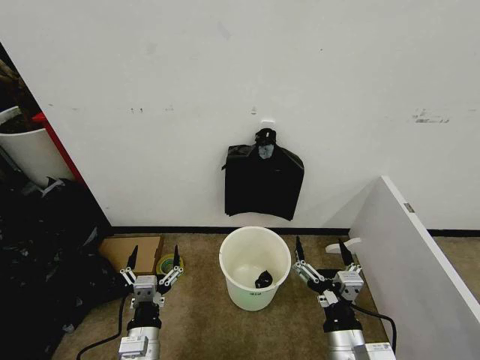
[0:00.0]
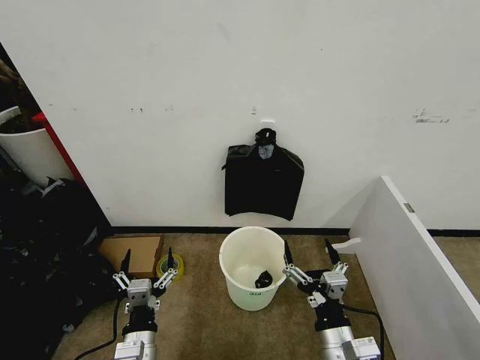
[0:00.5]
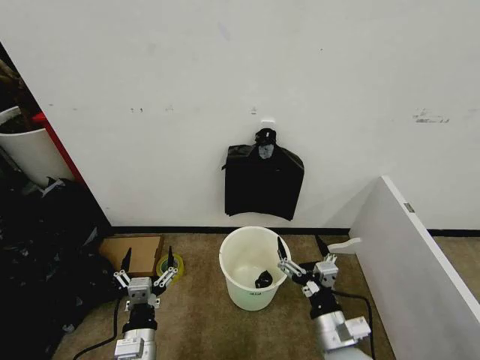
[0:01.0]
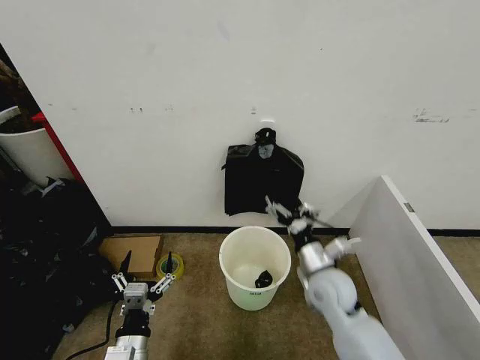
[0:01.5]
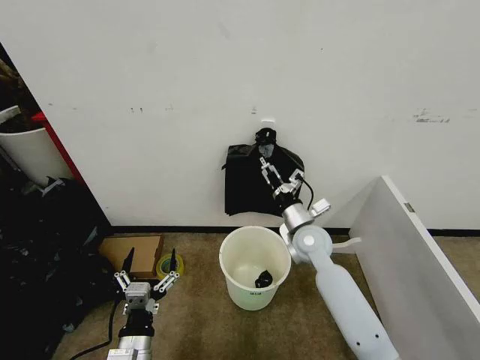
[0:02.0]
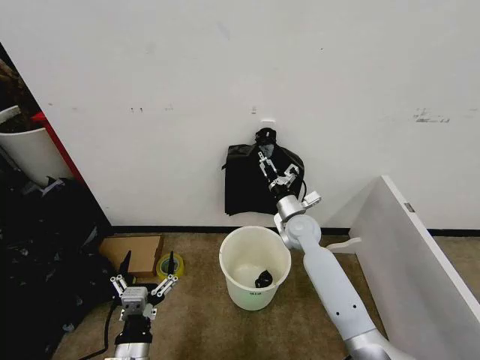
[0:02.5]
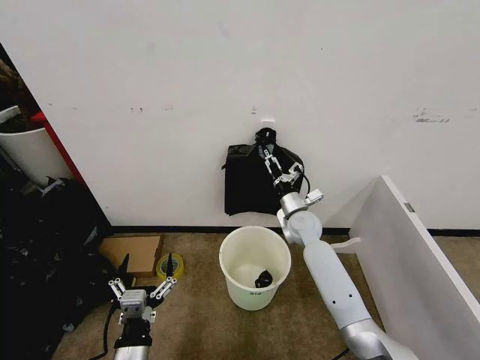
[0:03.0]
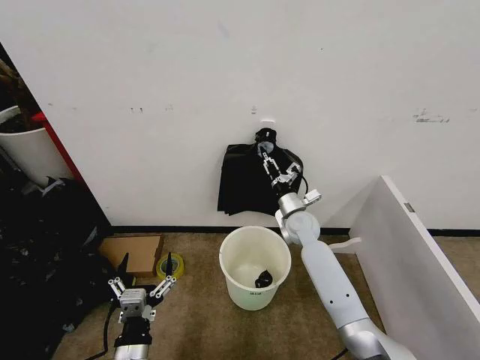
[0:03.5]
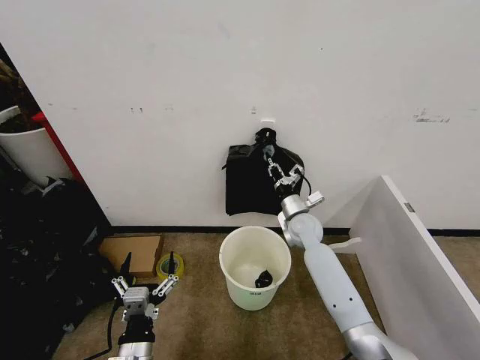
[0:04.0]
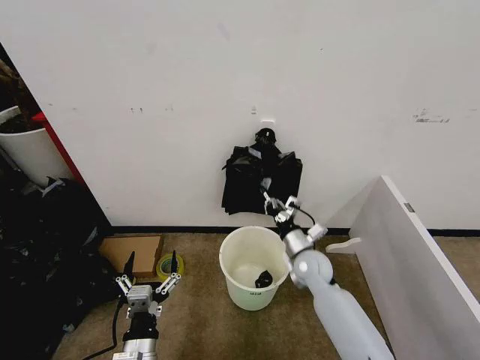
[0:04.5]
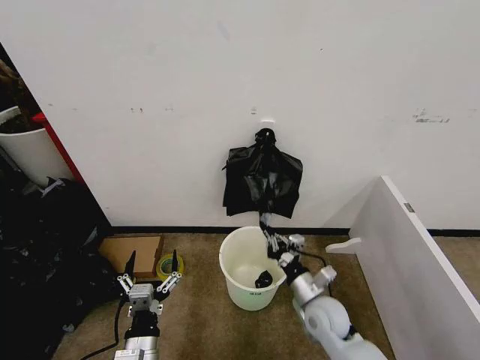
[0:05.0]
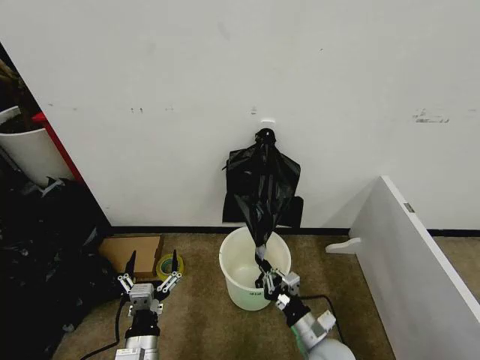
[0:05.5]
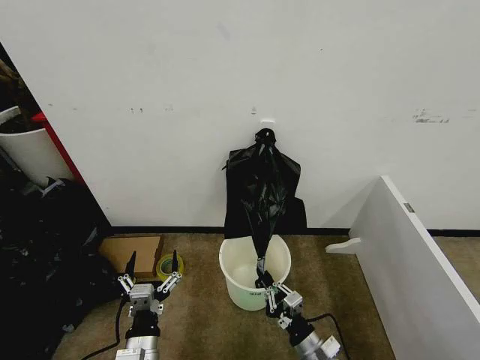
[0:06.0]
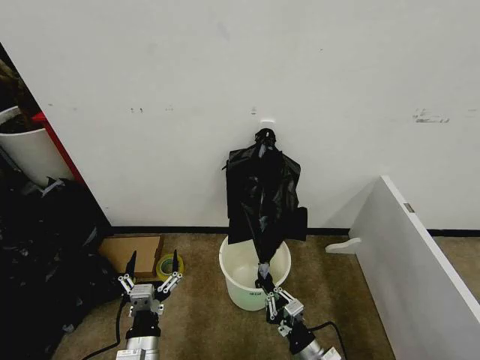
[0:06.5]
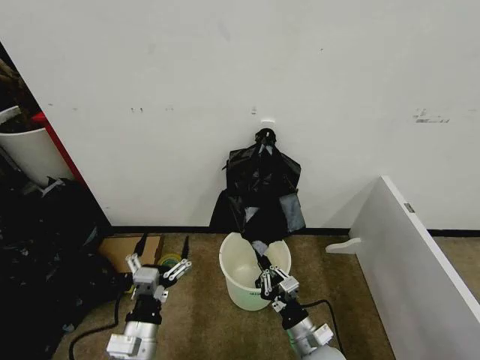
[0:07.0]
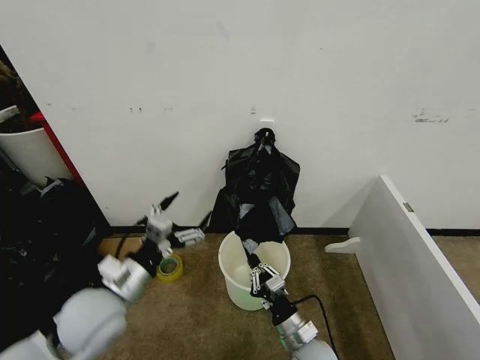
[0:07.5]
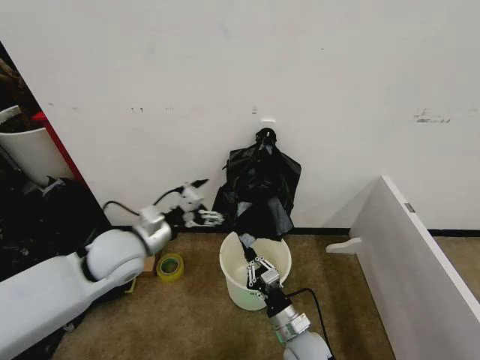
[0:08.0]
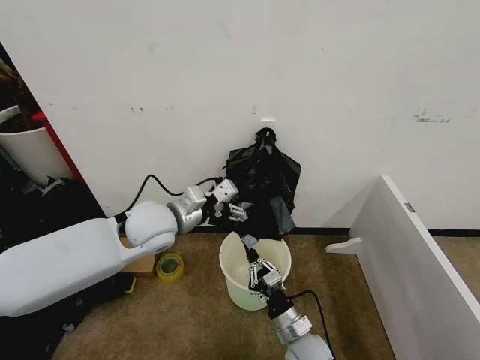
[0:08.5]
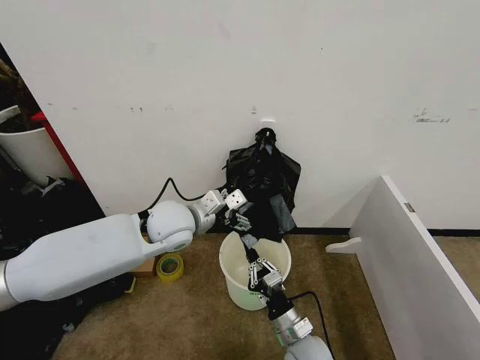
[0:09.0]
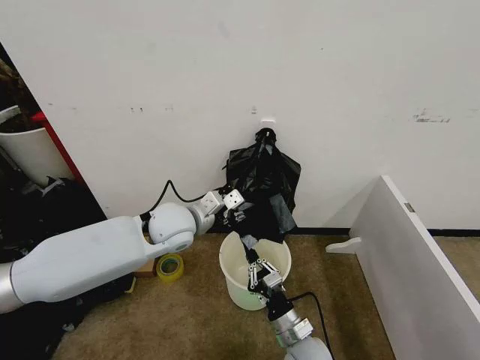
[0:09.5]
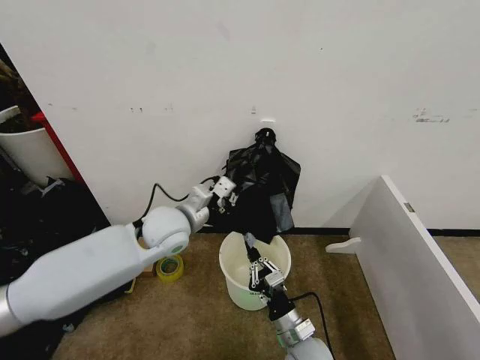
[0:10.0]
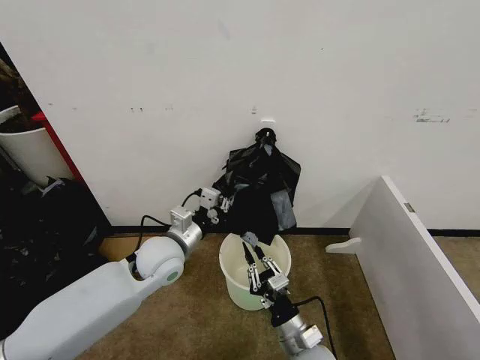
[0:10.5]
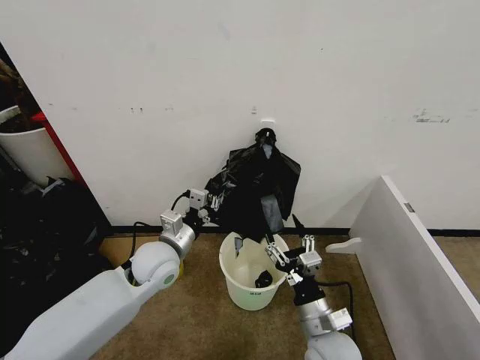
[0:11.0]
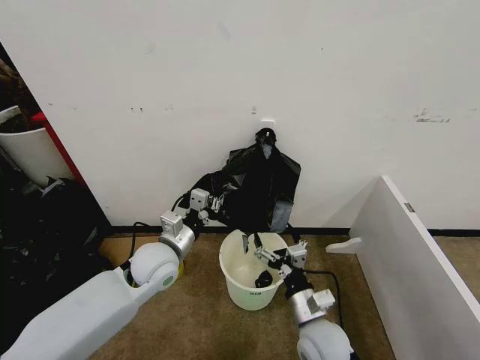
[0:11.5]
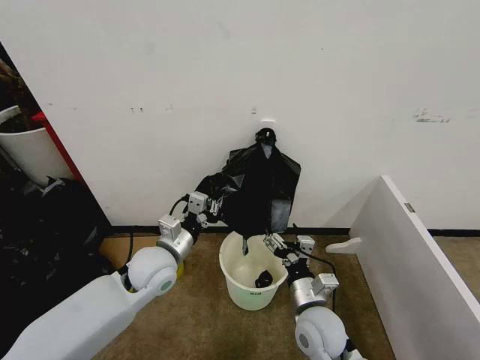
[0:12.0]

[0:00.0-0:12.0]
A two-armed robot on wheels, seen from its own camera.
Task of the whole recording: Place the garbage bag over the trash bin.
0:02.0 to 0:04.0: The right gripper moves forward, approximately 5 cm, and closes up.
0:04.0 to 0:06.0: The right gripper travels backward by approximately 30 cm.
0:06.0 to 0:08.0: The left gripper shifts about 25 cm forward and upward. Meanwhile the right gripper shifts approximately 10 cm to the left and forward.
0:08.0 to 0:10.0: The left gripper heads to the right and forward, covering some 10 cm, and closes its fingers.
0:10.0 to 0:12.0: The right gripper travels upward by approximately 10 cm, and opens its fingers; the left gripper moves downward and backward, about 10 cm.

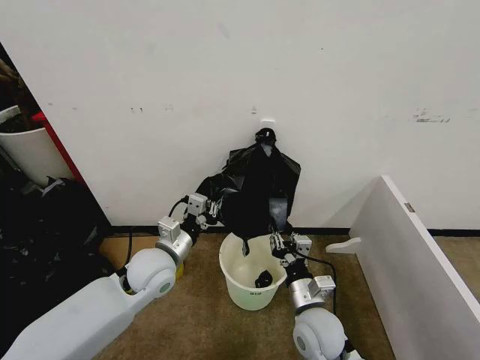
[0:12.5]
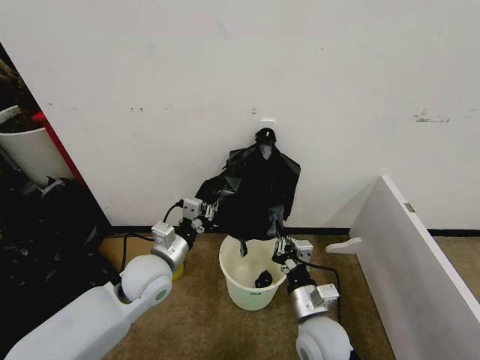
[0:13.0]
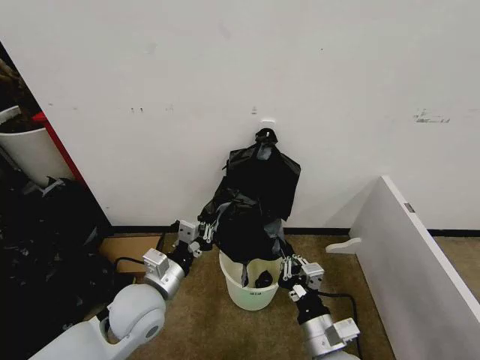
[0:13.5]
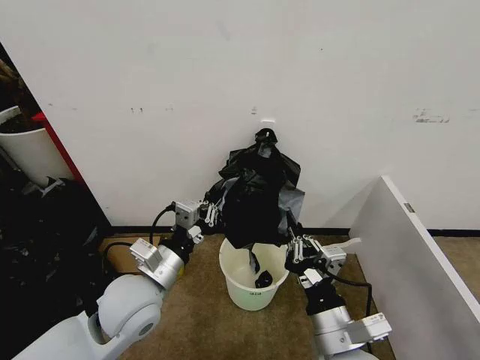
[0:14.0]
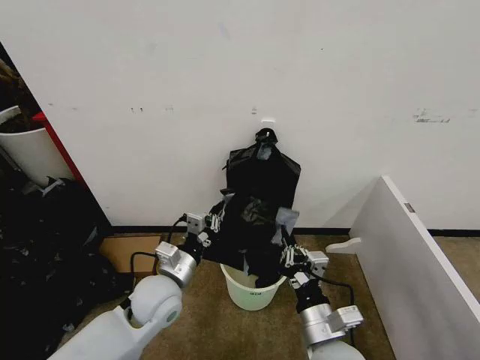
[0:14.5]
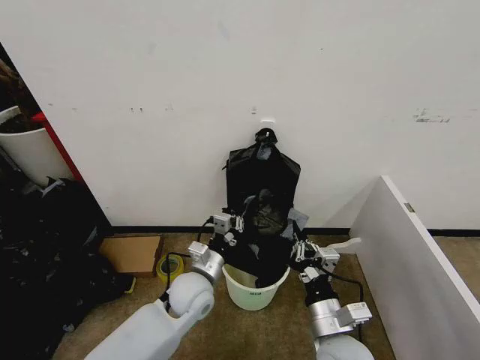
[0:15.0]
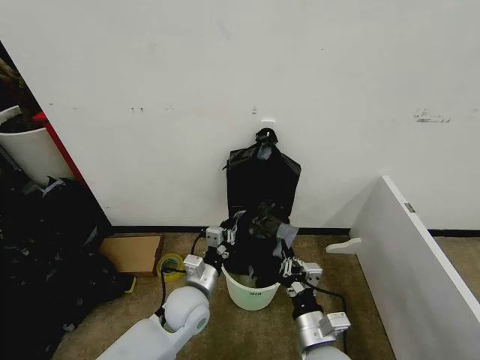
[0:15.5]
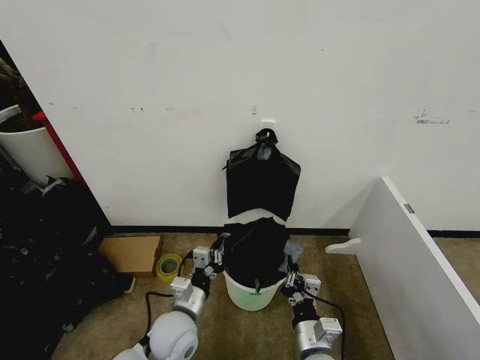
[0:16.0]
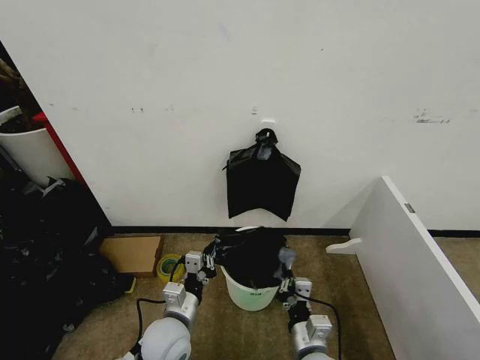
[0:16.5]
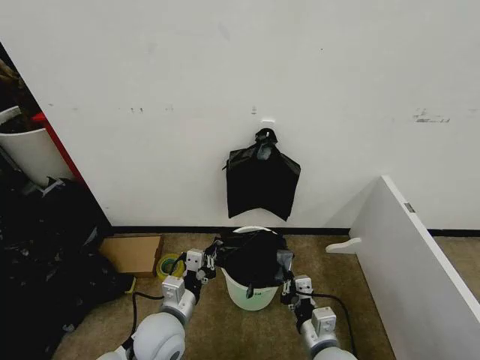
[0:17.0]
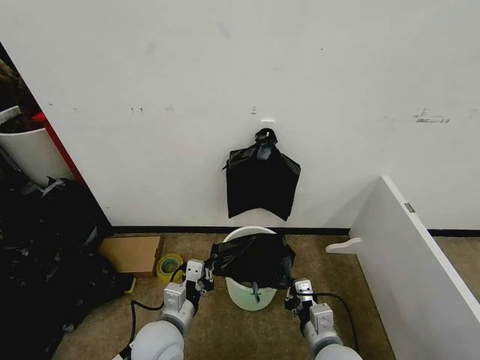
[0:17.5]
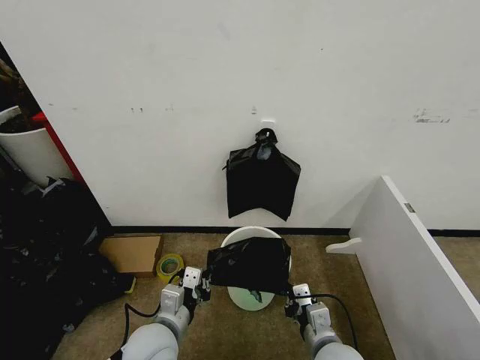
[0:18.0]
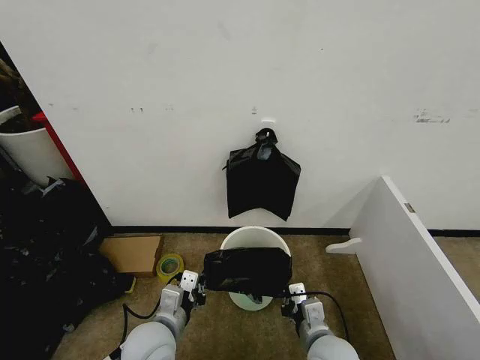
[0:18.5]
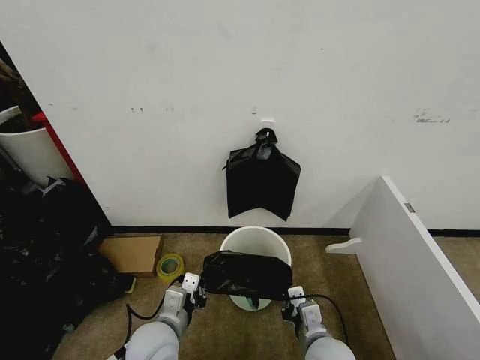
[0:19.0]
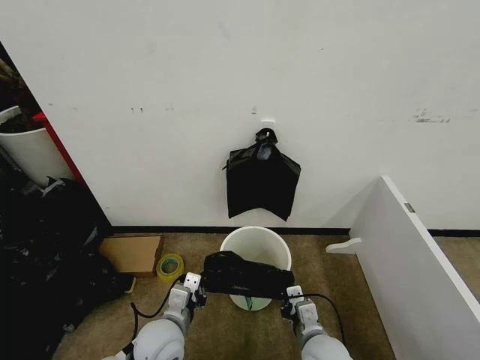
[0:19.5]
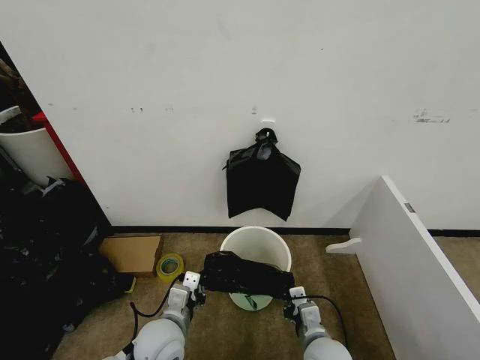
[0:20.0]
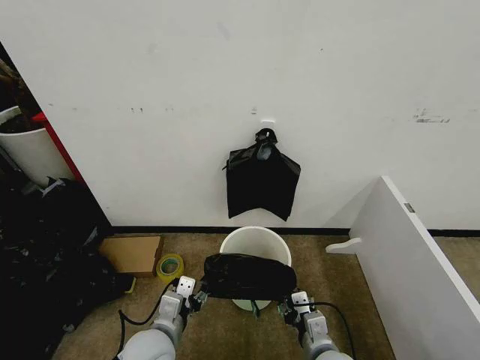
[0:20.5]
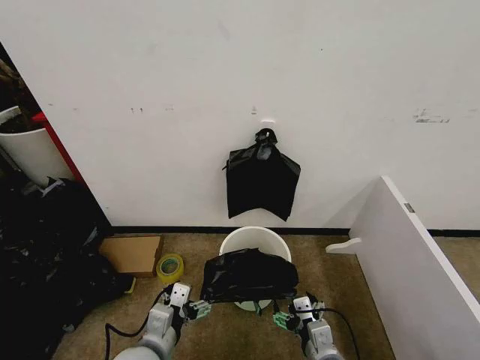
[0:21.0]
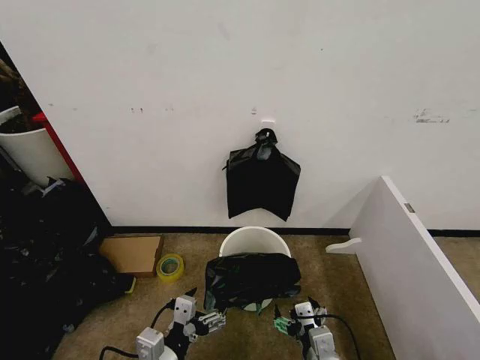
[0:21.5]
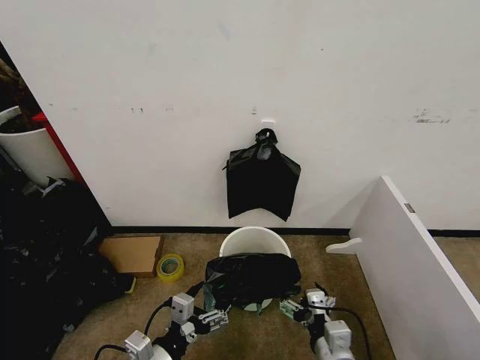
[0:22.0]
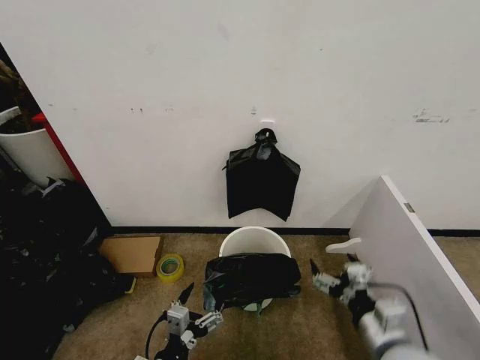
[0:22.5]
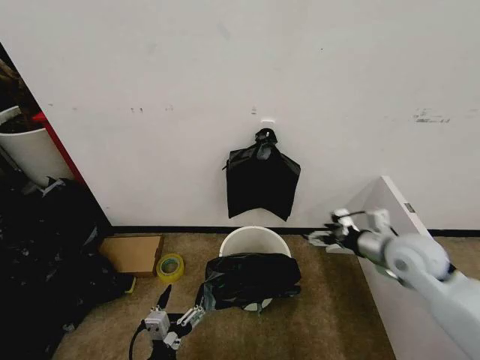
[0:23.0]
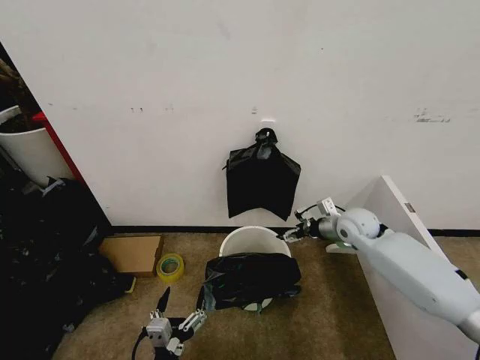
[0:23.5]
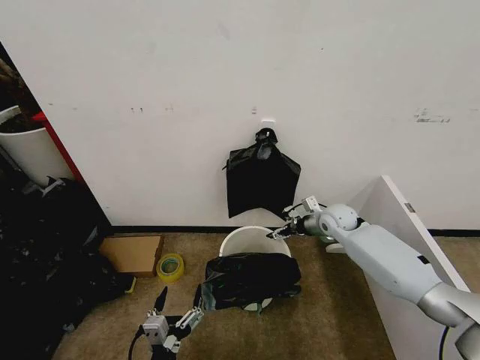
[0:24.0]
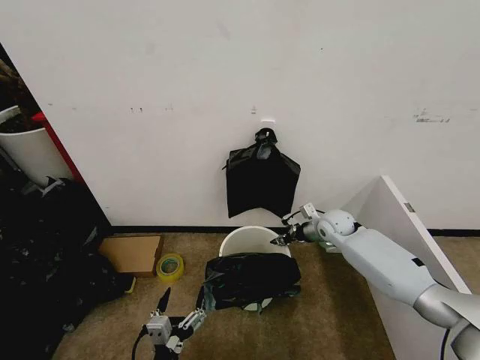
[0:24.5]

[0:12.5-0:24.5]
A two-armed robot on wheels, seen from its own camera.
Task of the whole recording: Place the garbage bag over the trash bin.
0:12.5 to 0:14.5: The right gripper is displaced backward by roughly 5 cm, and closes up.
0:14.5 to 0:16.5: The right gripper goes about 10 cm downward, while the left gripper shifts some 10 cm downward and backward.
0:16.5 to 0:18.5: The right gripper ends up approximately 5 cm from where it was.
0:18.5 to 0:20.5: The right gripper opens up; the left gripper opens.
0:20.5 to 0:22.5: The left gripper shifts approximately 10 cm backward, and opens; the right gripper goes some 15 cm upward and to the right, and opens its fingers.
0:22.5 to 0:24.5: The right gripper travels forward by approximately 35 cm, and closes up.

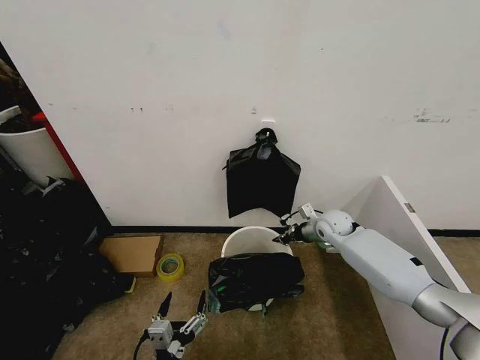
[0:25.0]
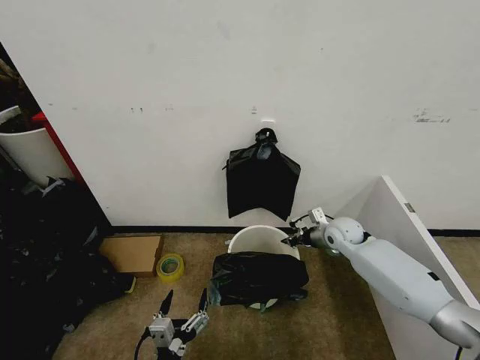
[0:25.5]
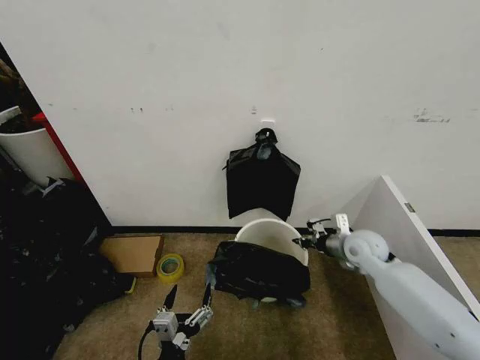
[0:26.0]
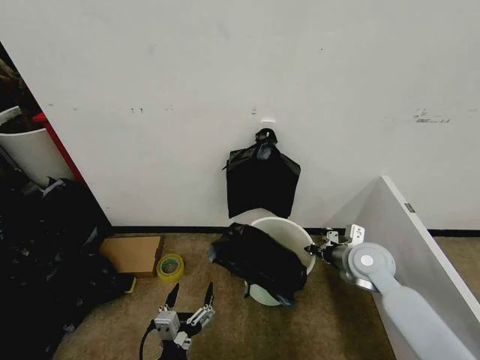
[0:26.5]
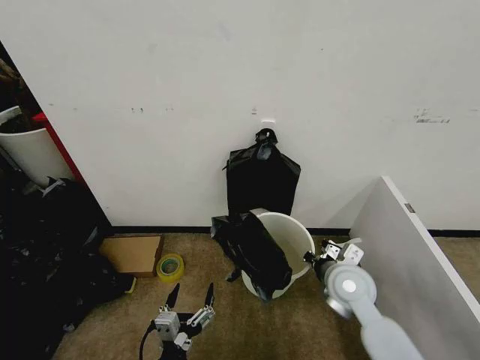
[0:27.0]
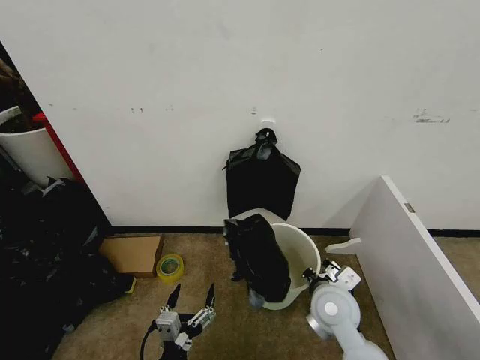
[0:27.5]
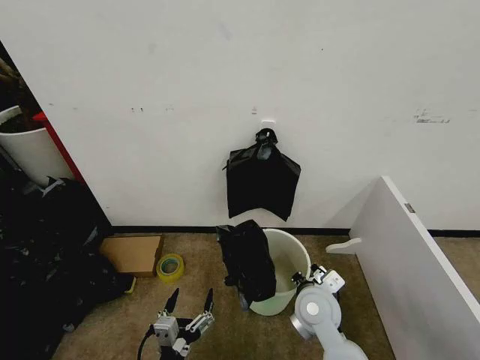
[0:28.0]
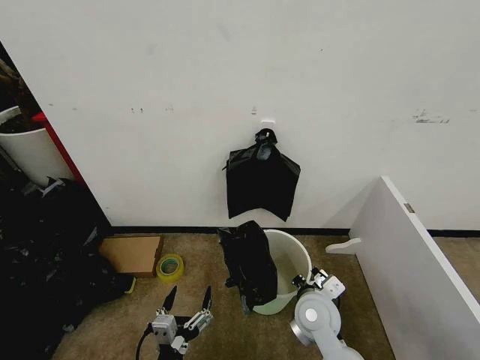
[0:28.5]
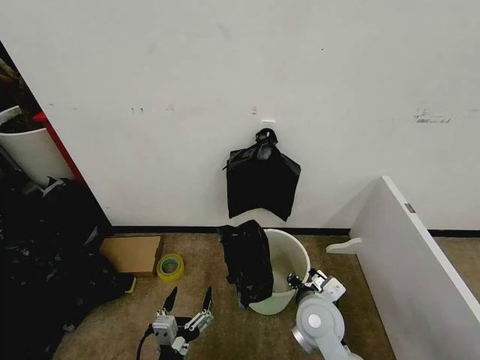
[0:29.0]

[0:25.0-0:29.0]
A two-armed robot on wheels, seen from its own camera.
Task of the whole recording: Place the garbage bag over the trash bin.
0:25.0 to 0:27.0: The right gripper goes about 20 cm backward.
0:27.0 to 0:29.0: The right gripper shifts approximately 10 cm to the left and backward, and opens.
